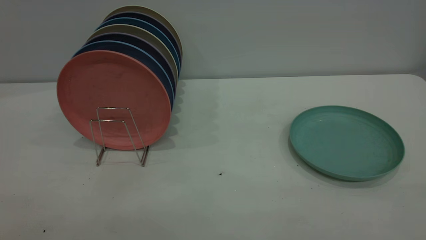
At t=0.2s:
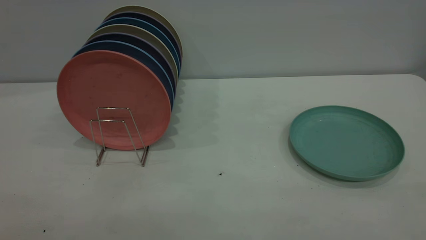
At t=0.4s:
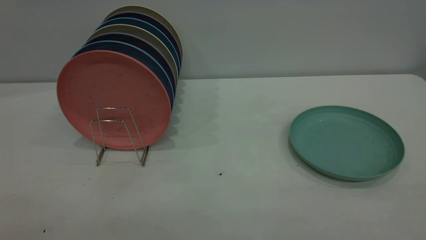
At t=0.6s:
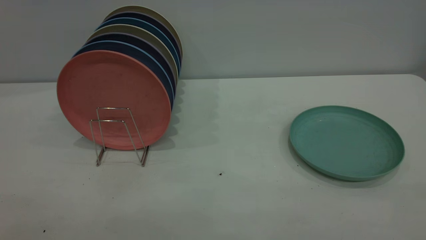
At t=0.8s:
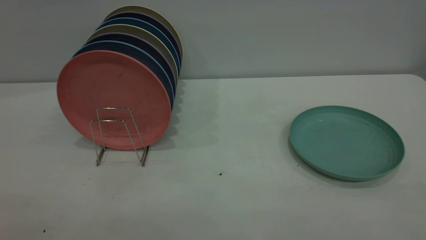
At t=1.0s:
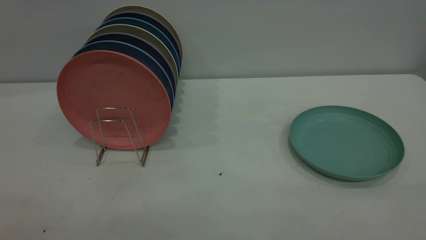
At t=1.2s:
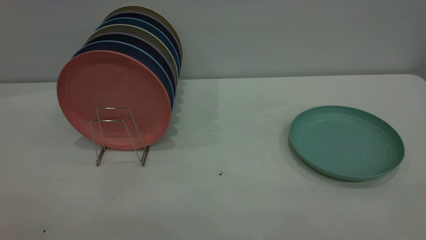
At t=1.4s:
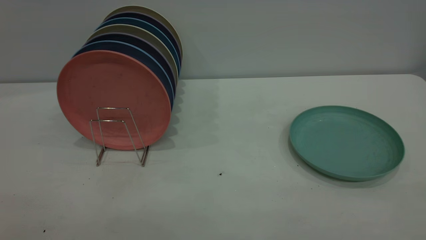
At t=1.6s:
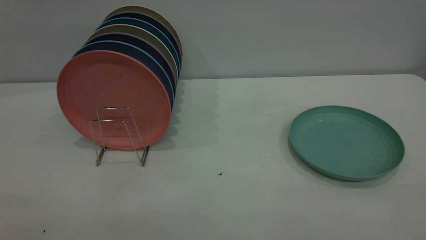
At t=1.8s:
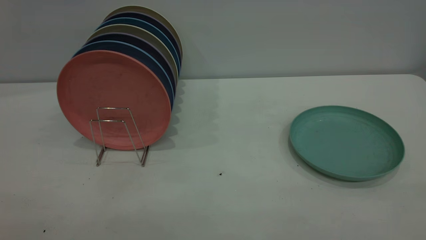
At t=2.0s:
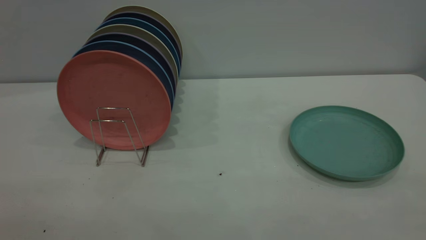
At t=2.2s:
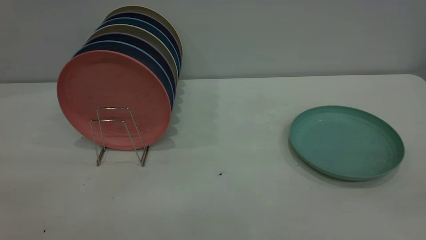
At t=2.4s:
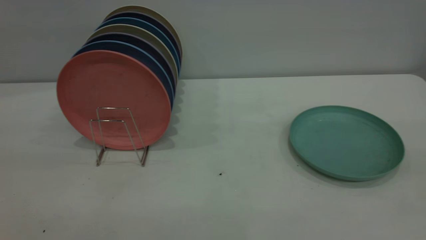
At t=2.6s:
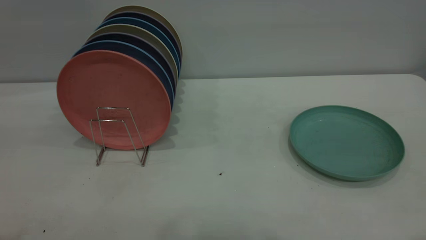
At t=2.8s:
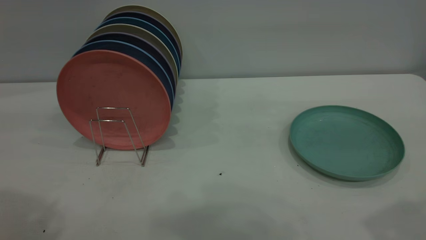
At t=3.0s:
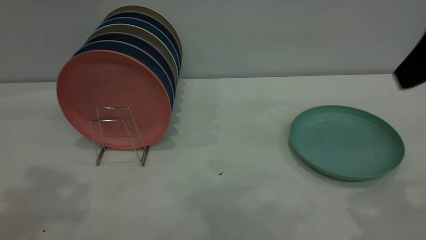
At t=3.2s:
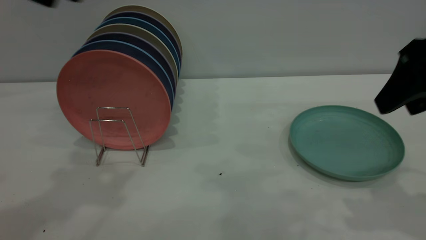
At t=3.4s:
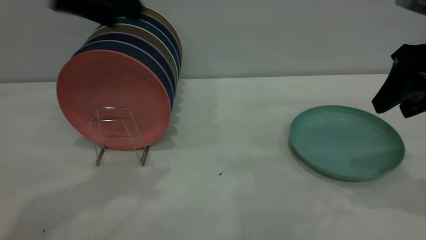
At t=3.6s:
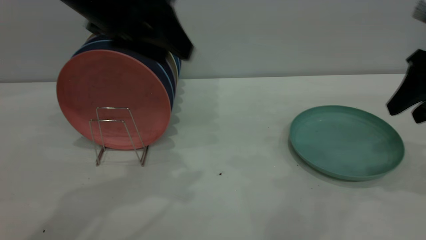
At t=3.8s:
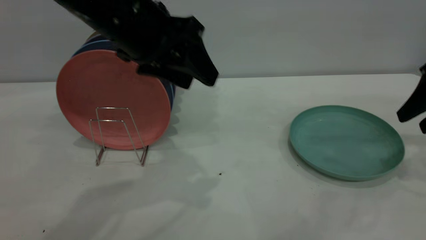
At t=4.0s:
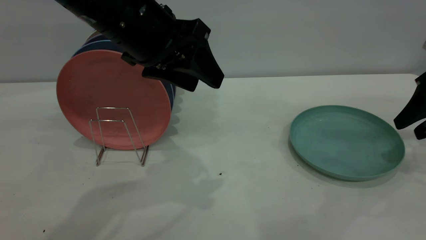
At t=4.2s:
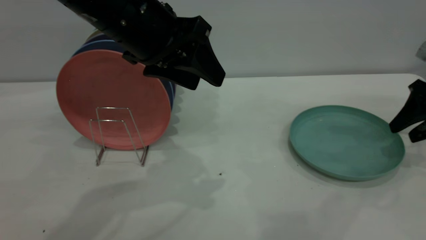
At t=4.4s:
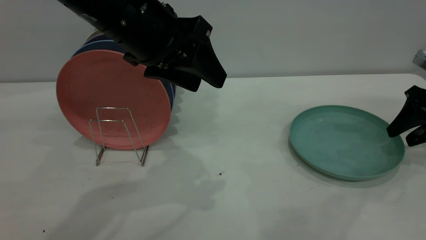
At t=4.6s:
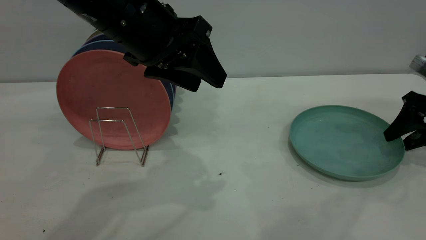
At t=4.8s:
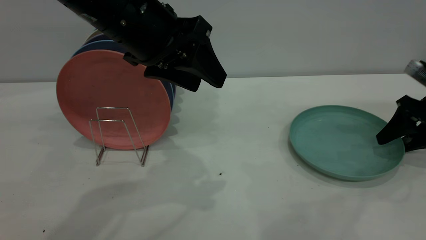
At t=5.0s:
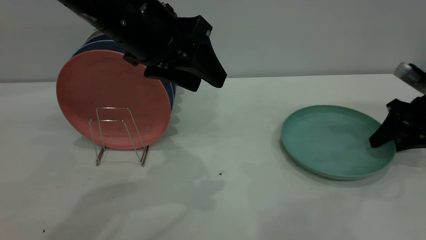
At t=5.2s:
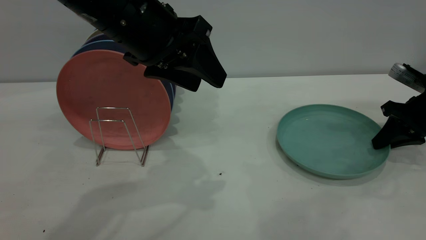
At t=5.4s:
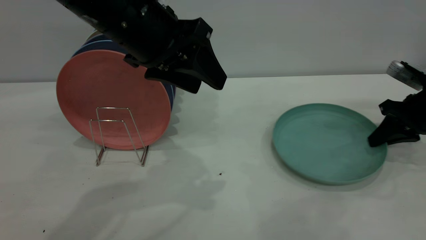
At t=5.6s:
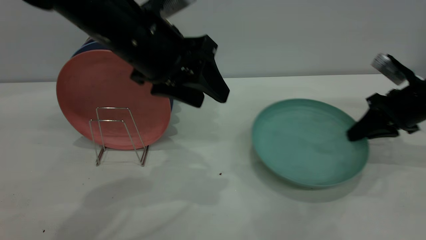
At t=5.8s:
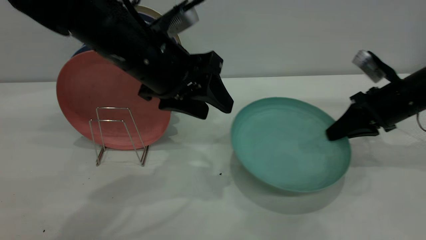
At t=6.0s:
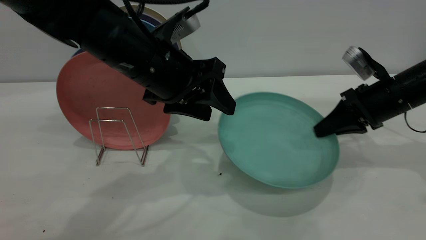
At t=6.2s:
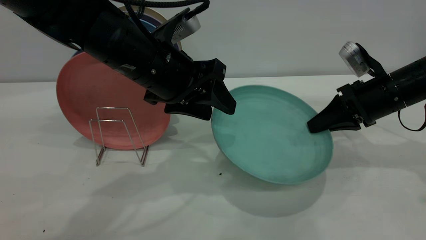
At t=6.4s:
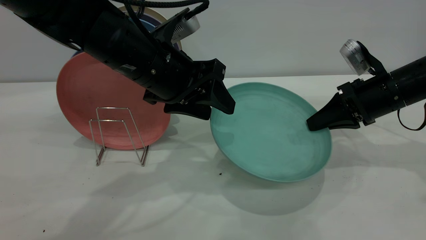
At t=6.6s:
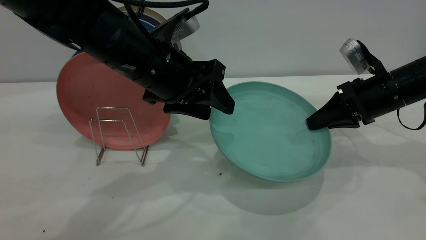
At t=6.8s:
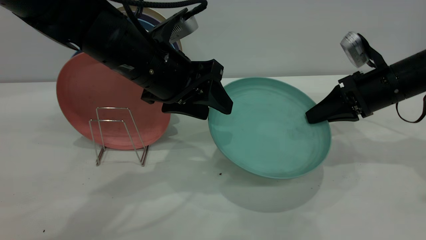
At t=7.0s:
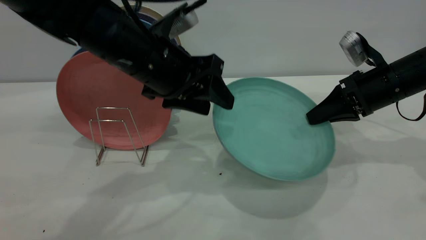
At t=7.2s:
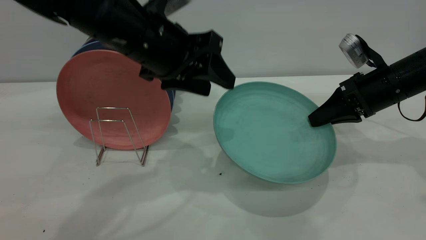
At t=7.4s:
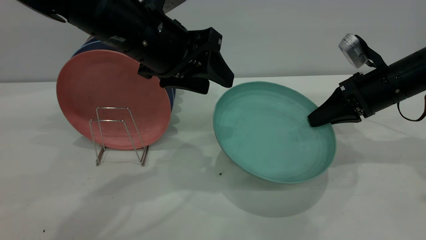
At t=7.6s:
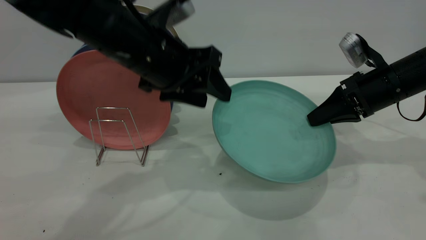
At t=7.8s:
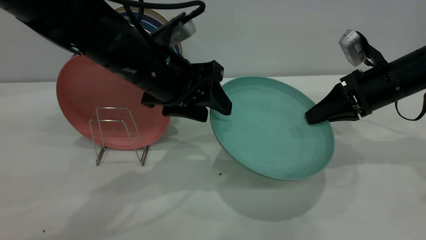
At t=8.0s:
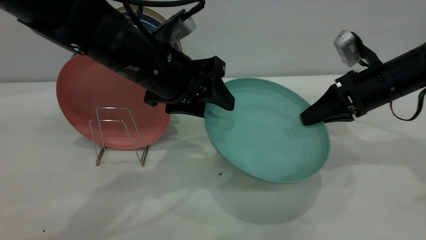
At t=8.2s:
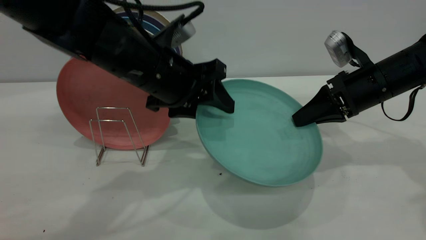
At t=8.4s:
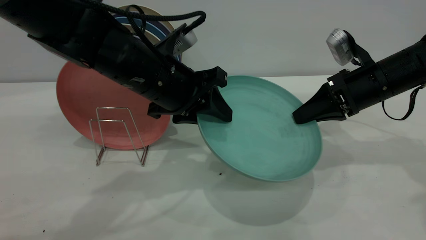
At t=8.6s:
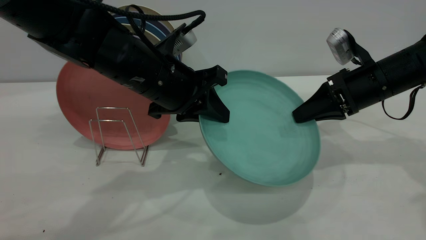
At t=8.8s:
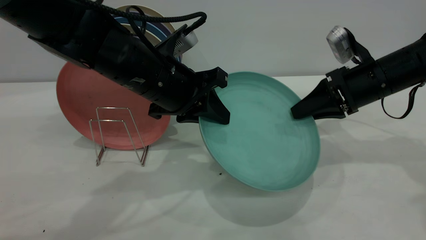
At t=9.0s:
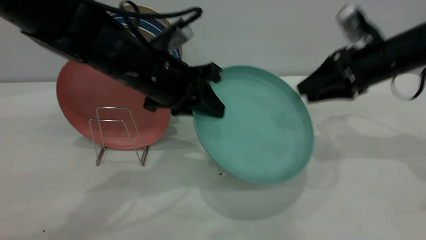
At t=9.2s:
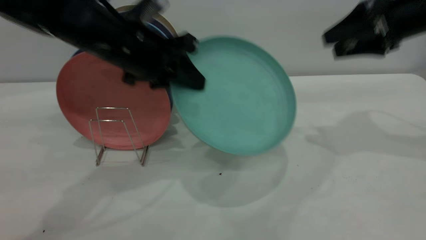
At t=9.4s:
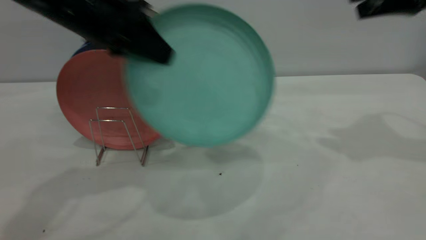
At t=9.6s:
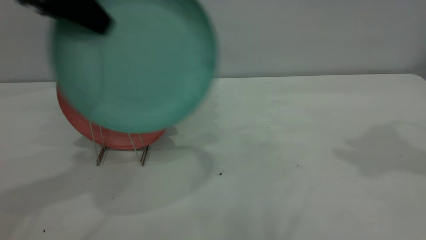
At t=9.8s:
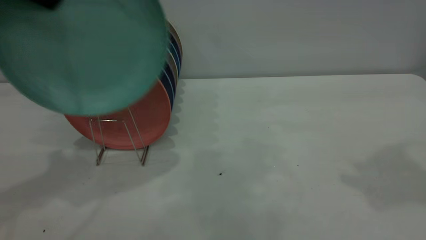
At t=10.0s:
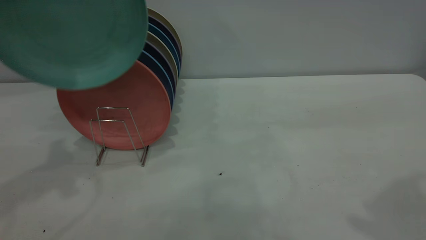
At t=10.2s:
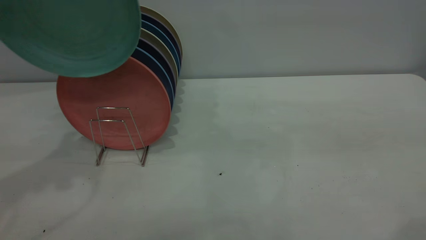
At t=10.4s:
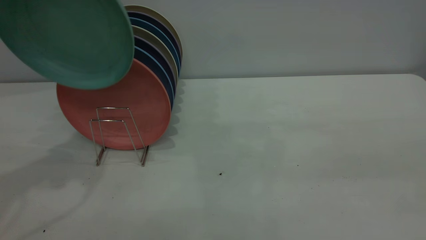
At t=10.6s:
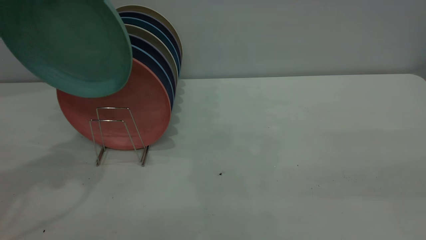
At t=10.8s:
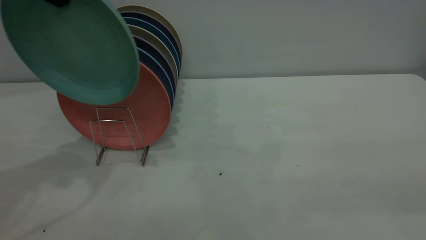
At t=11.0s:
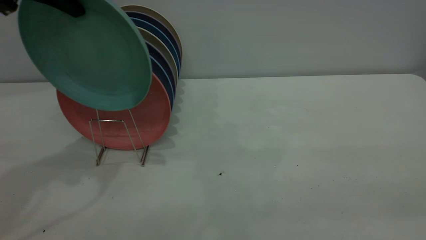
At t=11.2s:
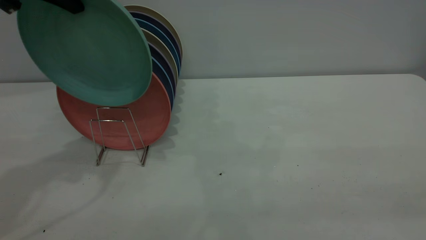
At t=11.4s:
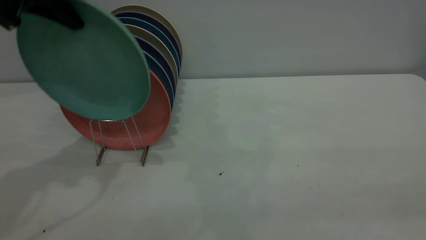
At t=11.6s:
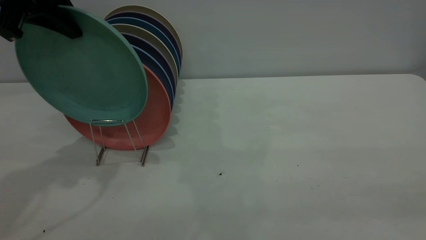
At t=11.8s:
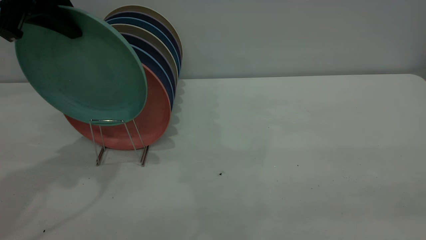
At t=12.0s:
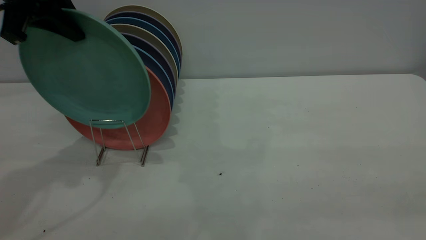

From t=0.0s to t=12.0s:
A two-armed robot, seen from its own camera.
Task of the whole recording: the right gripper grasp the green plate, the right gripper pass the green plate to the left gripper, and the left gripper place the green plate on the plate rack.
Step, from t=0.0s to t=5.6s: Pick up the plate with the right gripper.
Step, from t=6.0s to t=8.8s: Pass the plate from the right gripper to the left gripper.
From t=0.0s to t=1.6s: The two grippers keep their place.
From t=1.6s to t=3.0s: The right gripper is displaced forward by about 25 cm.
From t=3.0s to t=4.4s: The right gripper shifts approximately 25 cm downward, forward and to the right; the left gripper moves to the right and downward, some 20 cm.
From t=4.4s to t=6.0s: The right gripper travels to the left by about 10 cm, and closes up. The left gripper heads downward, covering roughly 5 cm.
From t=6.0s to t=7.6s: The grippers make only small movements.
From t=7.6s to t=9.0s: The left gripper closes, while the right gripper is displaced upward by some 5 cm, and opens.
From t=9.0s to t=10.4s: The right gripper goes approximately 35 cm backward and upward. The left gripper is displaced upward and to the left by roughly 25 cm.
From t=10.4s to t=12.0s: The left gripper goes some 5 cm downward.

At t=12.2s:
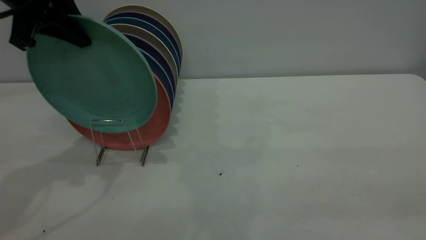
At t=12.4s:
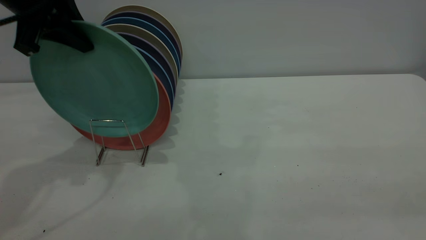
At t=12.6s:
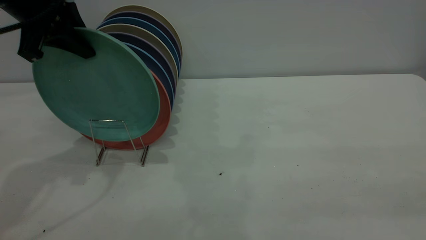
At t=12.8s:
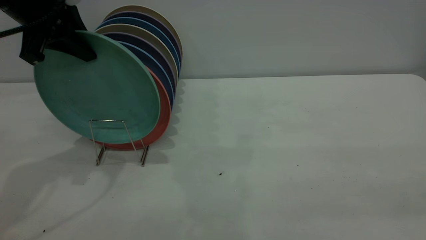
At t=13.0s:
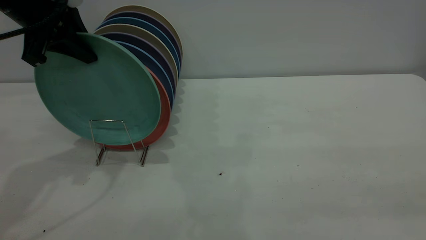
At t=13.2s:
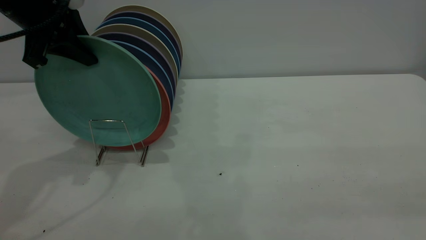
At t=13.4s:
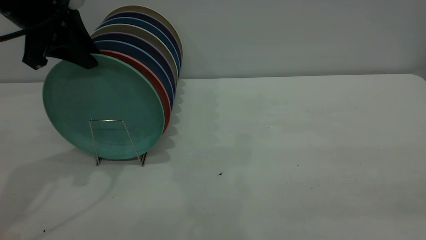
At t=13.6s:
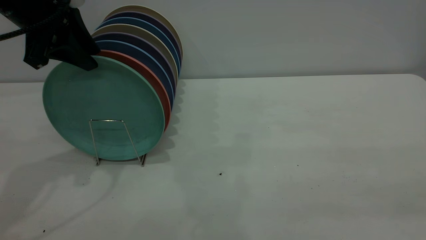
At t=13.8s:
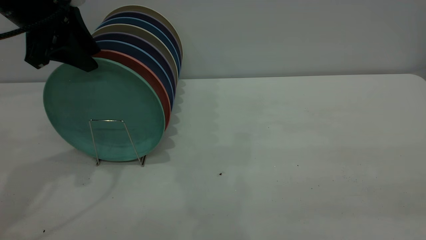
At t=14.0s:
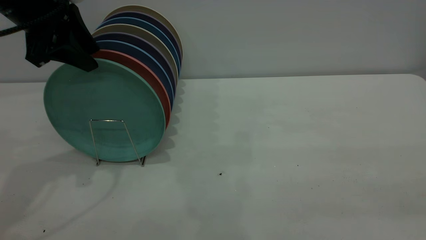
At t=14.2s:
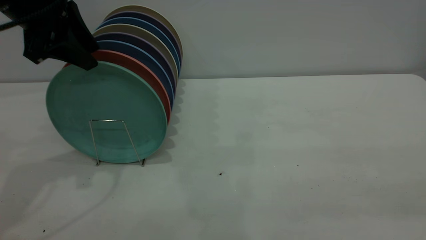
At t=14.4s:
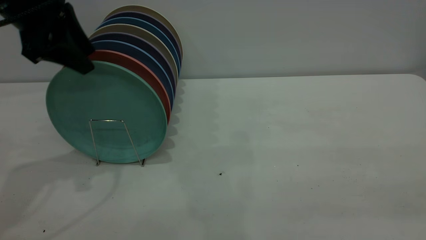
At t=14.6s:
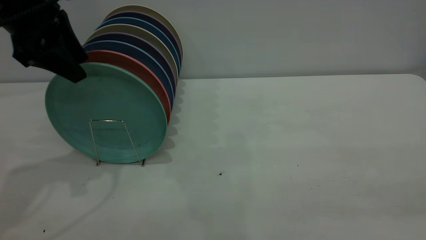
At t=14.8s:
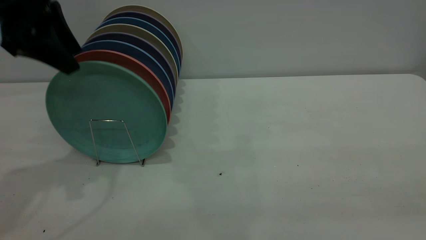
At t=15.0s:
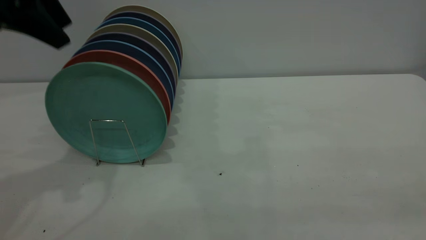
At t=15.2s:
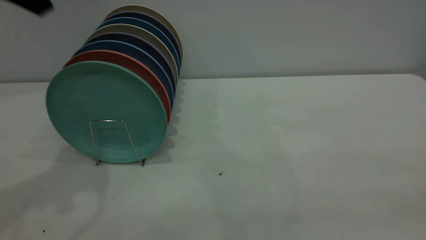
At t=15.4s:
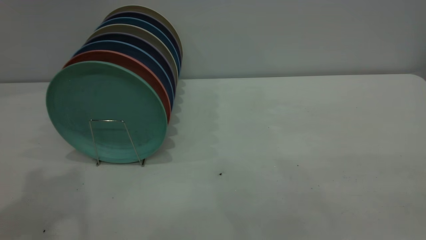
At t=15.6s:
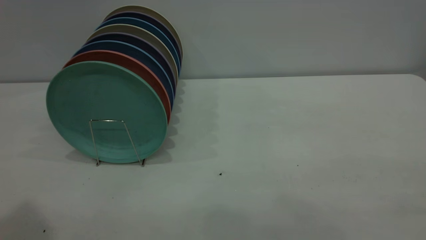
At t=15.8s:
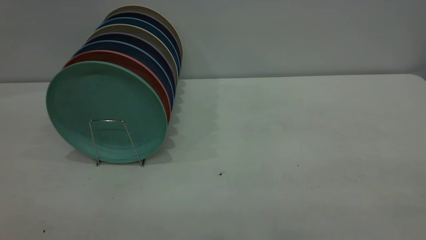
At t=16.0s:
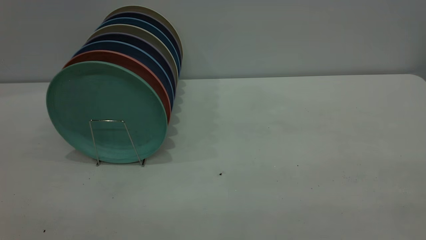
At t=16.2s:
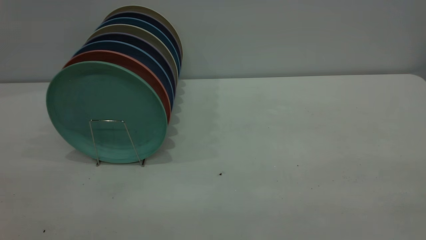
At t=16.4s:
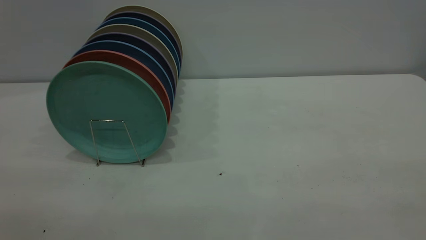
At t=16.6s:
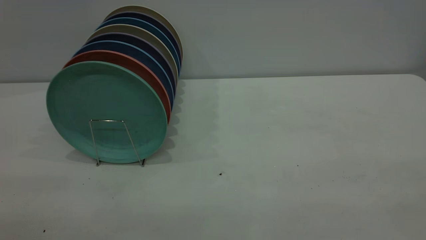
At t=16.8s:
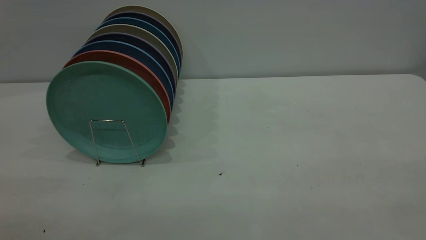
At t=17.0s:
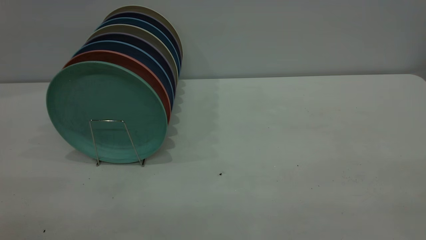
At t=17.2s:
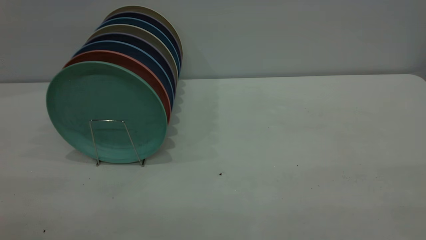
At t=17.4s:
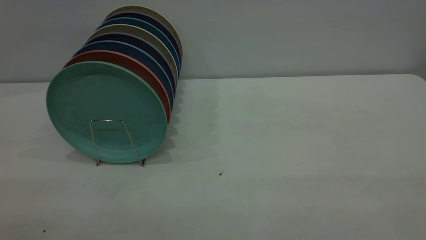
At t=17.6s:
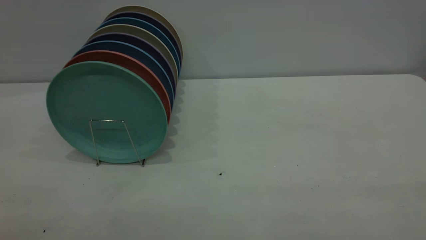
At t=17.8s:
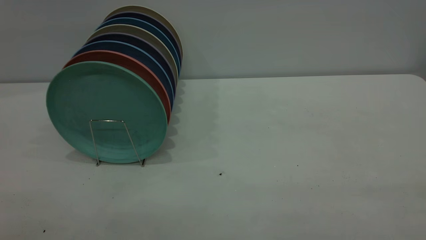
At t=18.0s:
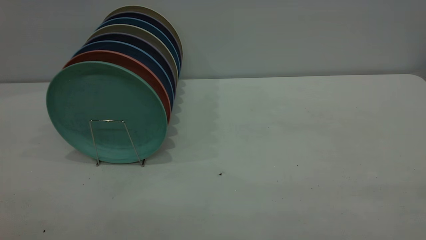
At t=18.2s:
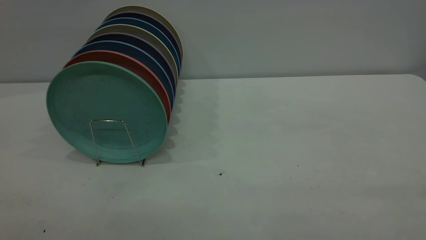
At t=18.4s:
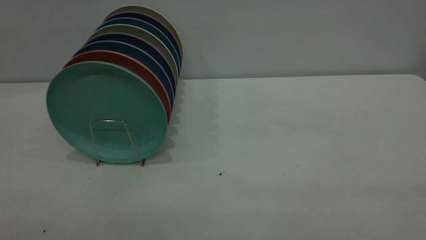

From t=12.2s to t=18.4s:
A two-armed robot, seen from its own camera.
Task of the whole recording: the right gripper grasp the green plate, the right gripper pass the green plate to the left gripper, and the left gripper place the green plate on the plate rack.
Step, from t=12.2s to t=14.8s: Place the plate on the shelf.
From t=12.2s to t=13.8s: The left gripper opens up.
From t=13.8s to t=15.4s: The left gripper is displaced upward and backward by some 20 cm.
